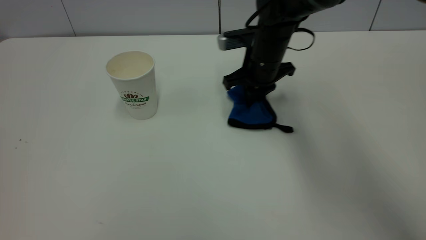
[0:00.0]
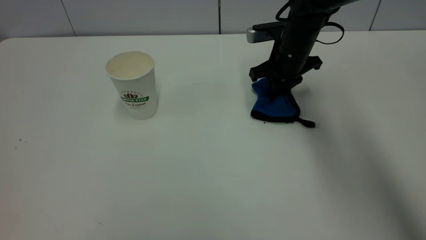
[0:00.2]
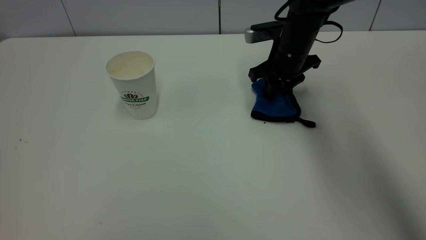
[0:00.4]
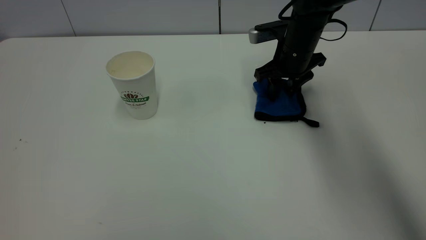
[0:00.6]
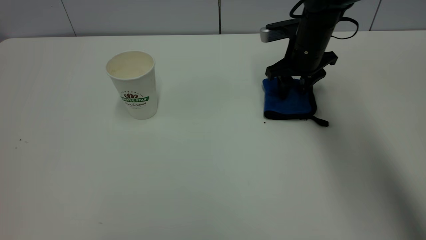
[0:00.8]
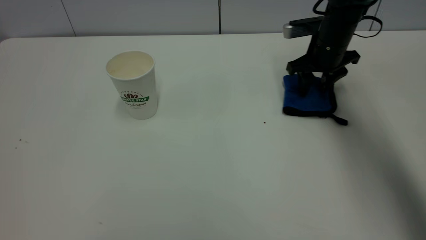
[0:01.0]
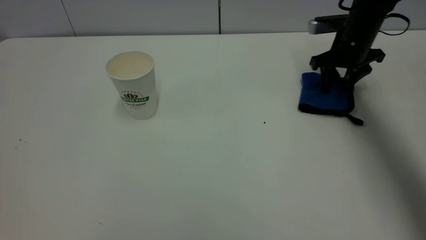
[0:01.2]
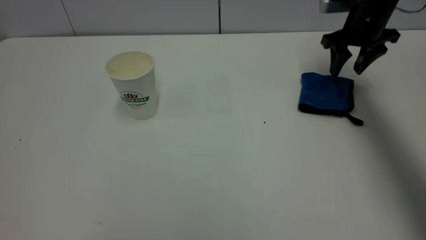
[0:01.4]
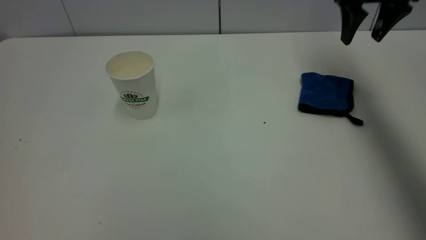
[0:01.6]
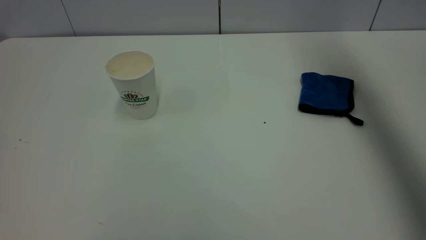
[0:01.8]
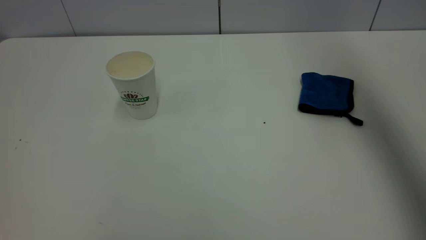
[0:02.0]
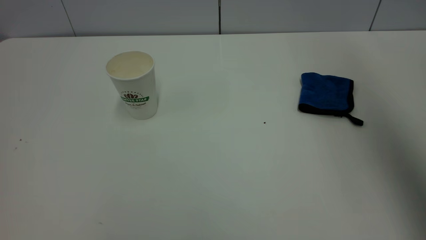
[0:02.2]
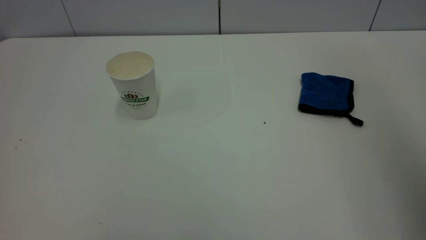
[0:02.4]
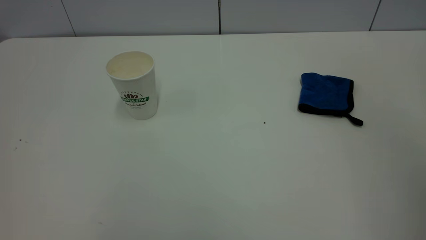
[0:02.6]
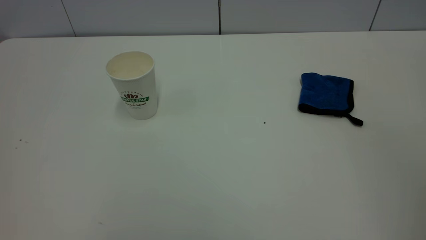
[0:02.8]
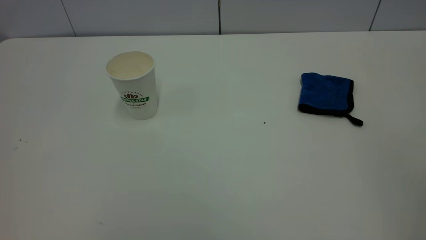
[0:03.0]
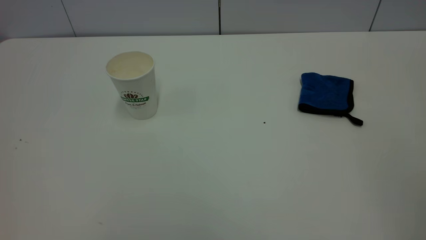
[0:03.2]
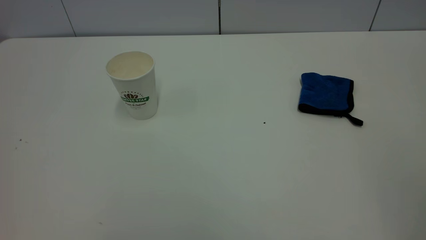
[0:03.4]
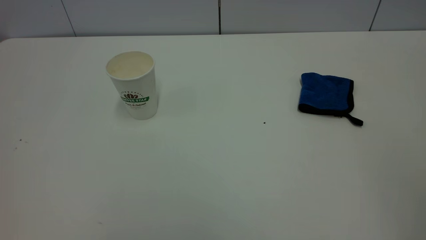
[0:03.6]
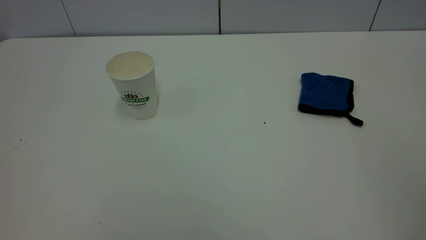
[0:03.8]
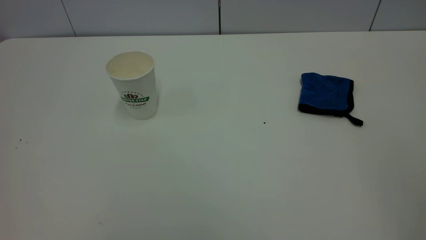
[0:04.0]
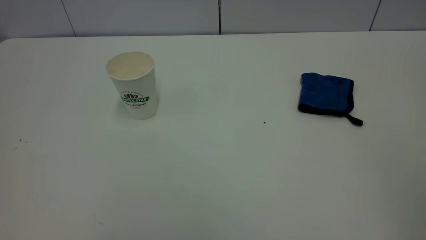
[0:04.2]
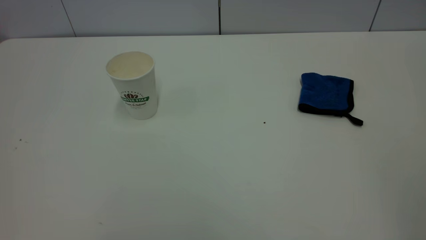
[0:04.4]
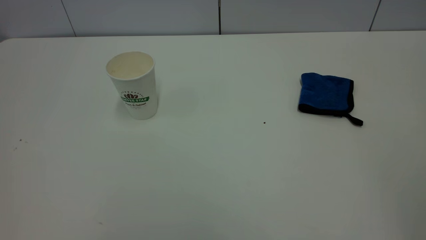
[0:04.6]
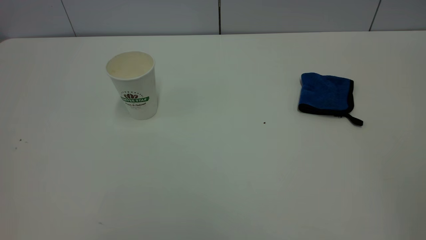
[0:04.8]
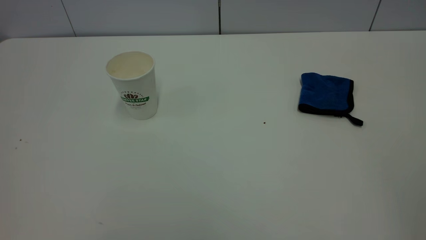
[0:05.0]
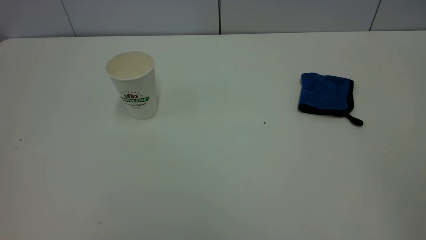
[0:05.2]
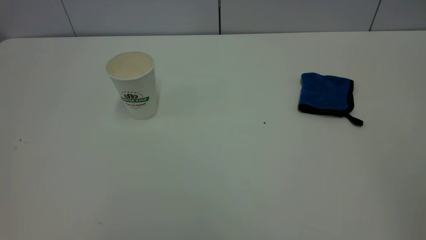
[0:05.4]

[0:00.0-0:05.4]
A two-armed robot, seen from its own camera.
Task of the whole recording: the left gripper pick up the fallen cup and place it upright, the right gripper grasp the blue rag and wipe the tea stain on the table, the right gripper put the blue rag back in its original position.
0:00.0 to 0:01.4: The right gripper goes some 20 cm to the right and upward, and opens.
0:01.4 to 0:02.8: The right gripper shifts approximately 50 cm backward and upward.
